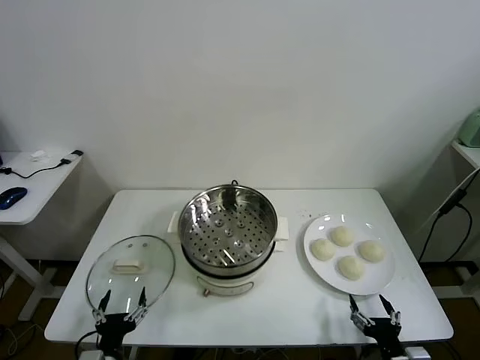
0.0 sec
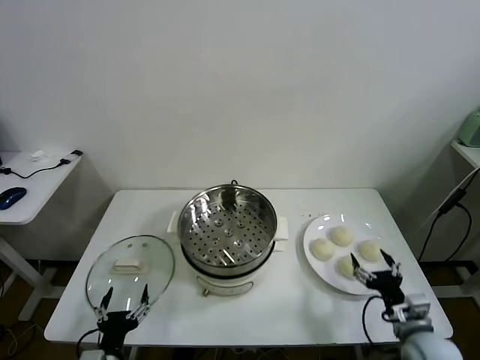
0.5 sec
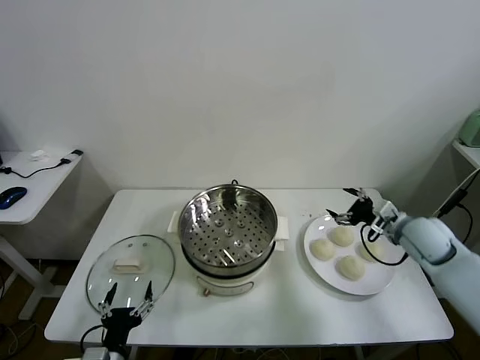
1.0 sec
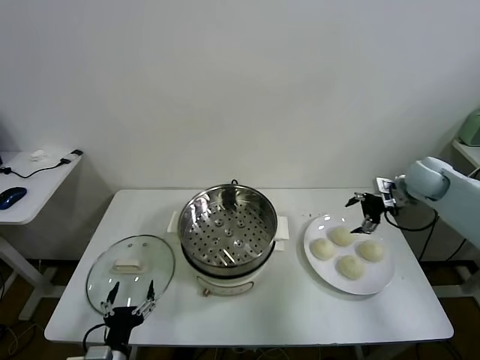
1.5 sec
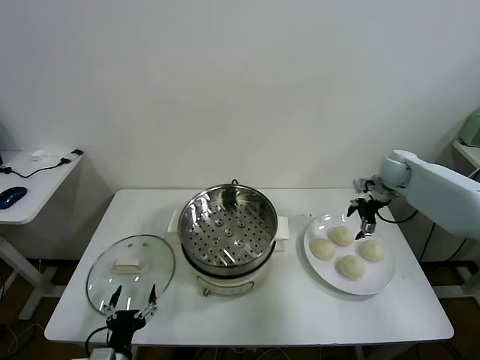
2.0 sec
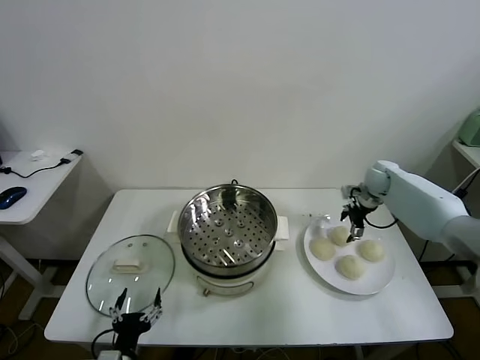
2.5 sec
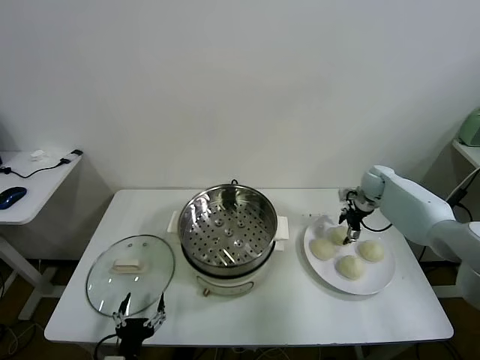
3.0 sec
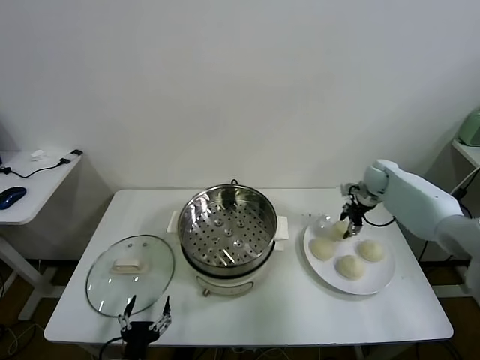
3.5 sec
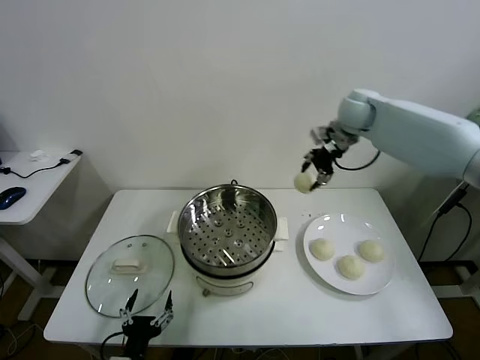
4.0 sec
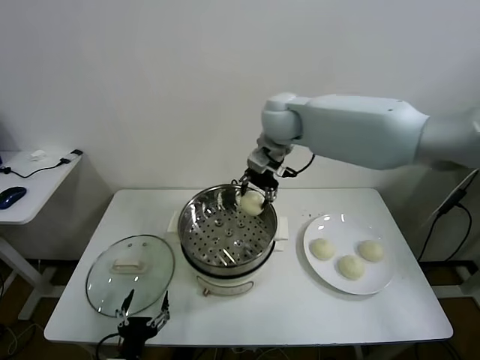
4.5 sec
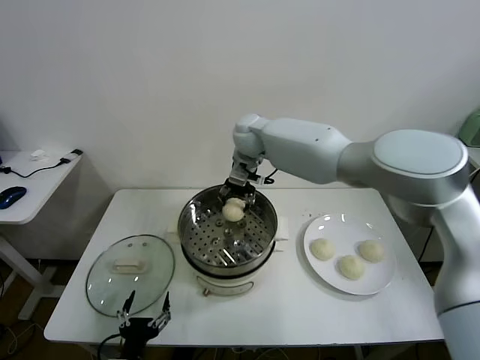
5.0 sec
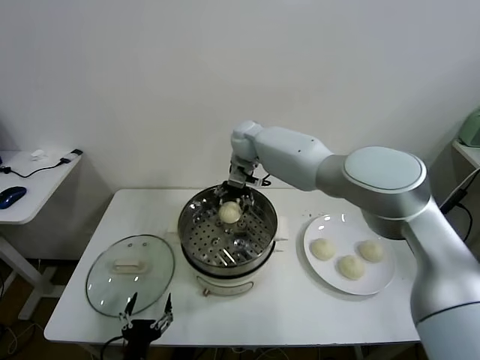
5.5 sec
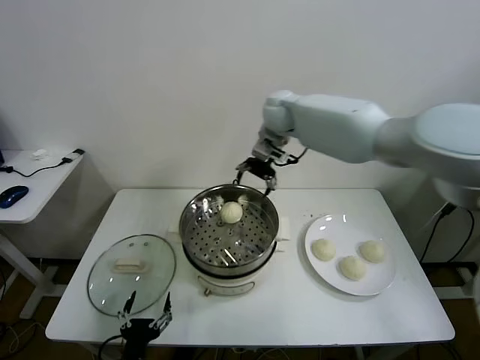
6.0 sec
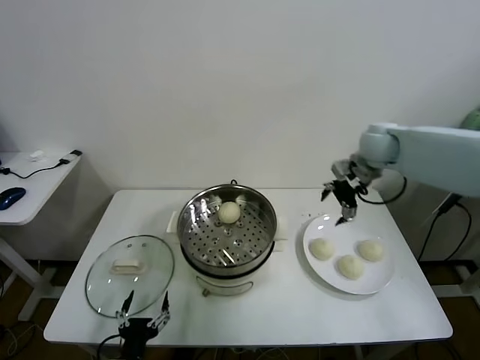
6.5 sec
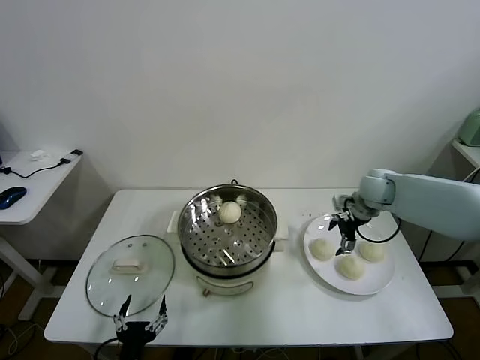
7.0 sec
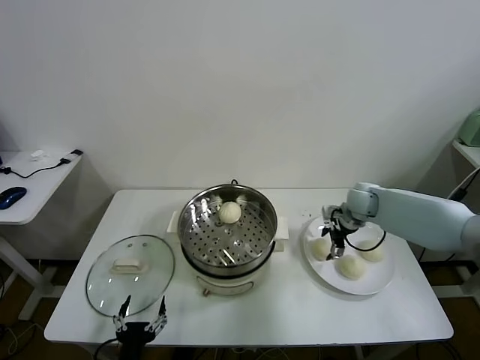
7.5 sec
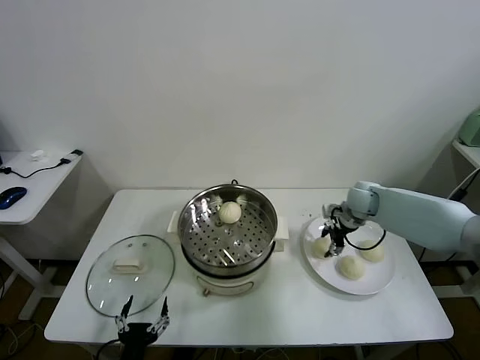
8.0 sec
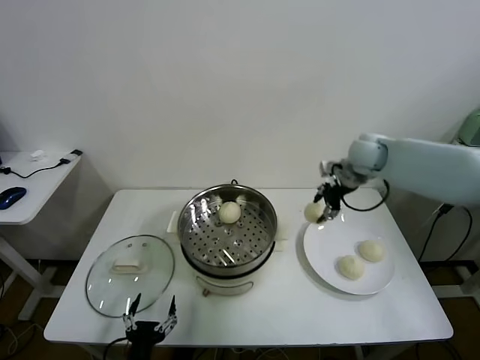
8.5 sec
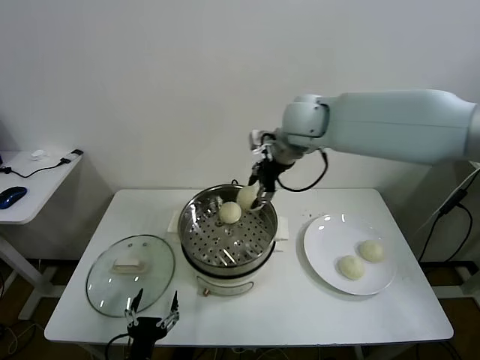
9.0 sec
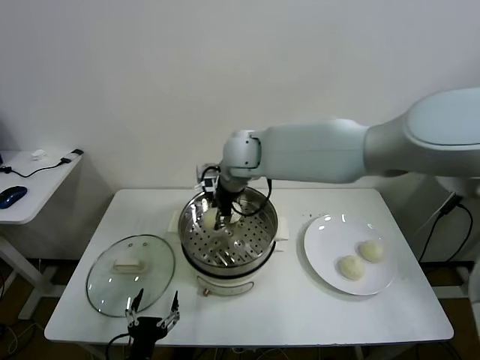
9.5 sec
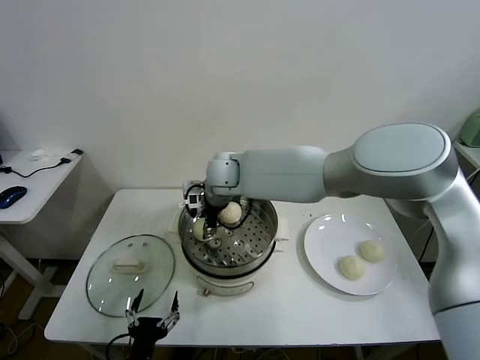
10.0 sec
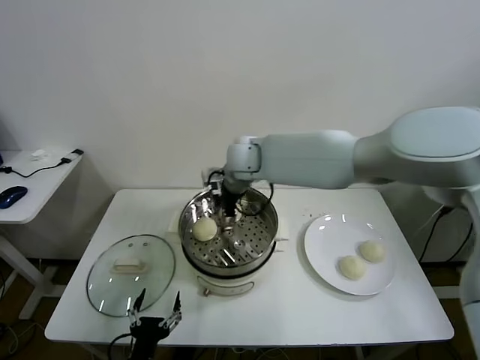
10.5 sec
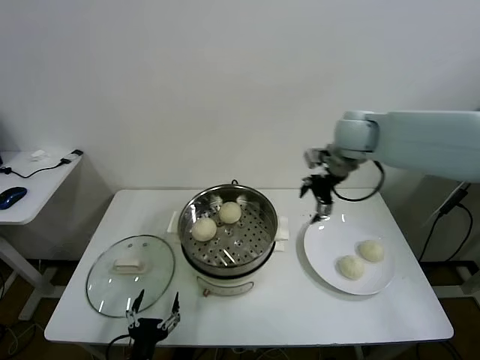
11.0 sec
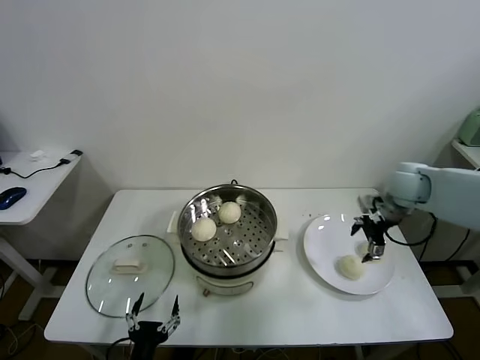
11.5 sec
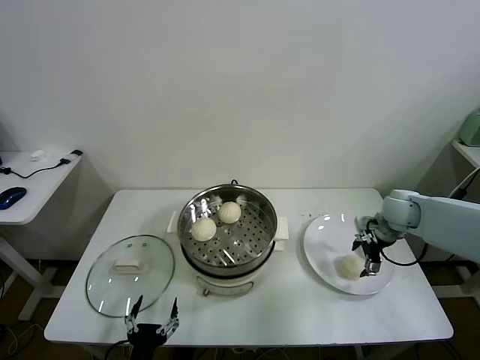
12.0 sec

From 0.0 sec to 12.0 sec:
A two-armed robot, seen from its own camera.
Task of the whole recording: take steamed baozi put them in steamer.
Step, from 0.0 sec to 3.0 sec: Grasp the baozi in the plate with right gripper.
Step, from 3.5 sec to 5.5 sec: Place the baozi on the steamer with right gripper.
Step, from 6.0 sec to 7.5 sec: Grasp the baozi in the plate with right gripper.
Step, from 8.0 sec to 10.0 sec: Place the baozi on the steamer with right gripper.
From 2.0 sec to 4.0 sec: The right gripper goes some 25 cm upward and to the left, and closes.
From 4.0 sec to 6.0 sec: The right gripper heads to the left, covering roughly 10 cm, and opens up.
From 6.0 sec to 8.0 sec: The right gripper heads downward and to the right, covering roughly 30 cm, and closes up.
From 8.0 sec to 10.0 sec: The right gripper moves to the left, some 35 cm.
From 10.0 sec to 12.0 sec: The right gripper heads to the right, covering some 40 cm, and opens its fingers.

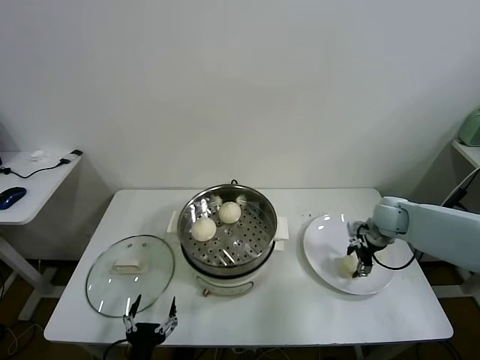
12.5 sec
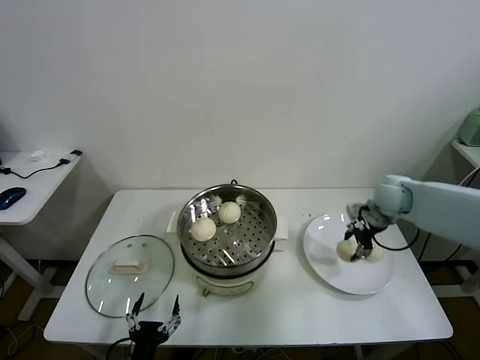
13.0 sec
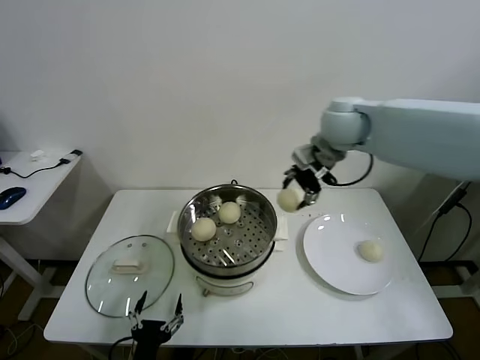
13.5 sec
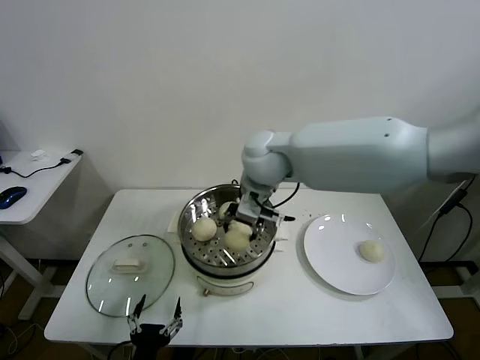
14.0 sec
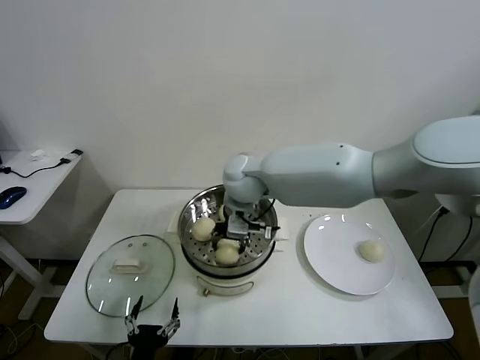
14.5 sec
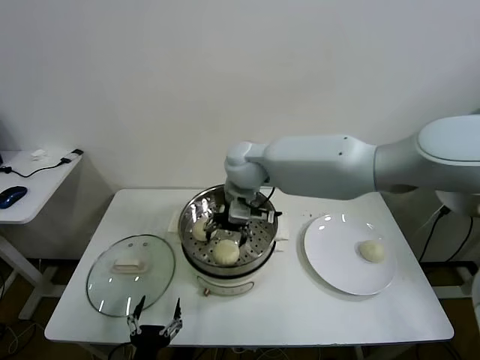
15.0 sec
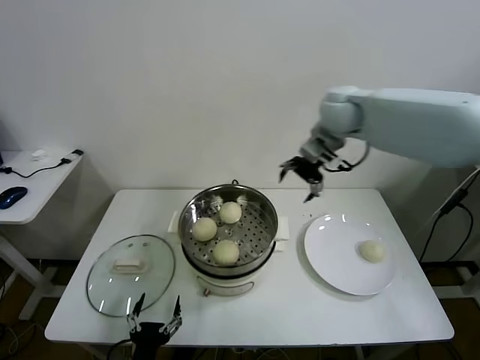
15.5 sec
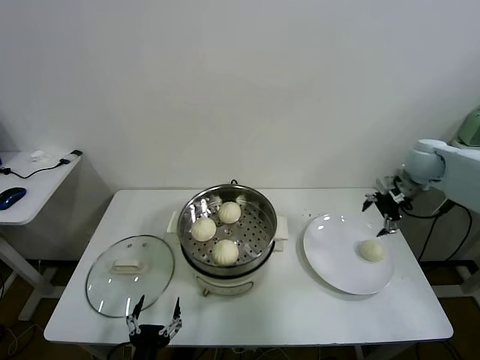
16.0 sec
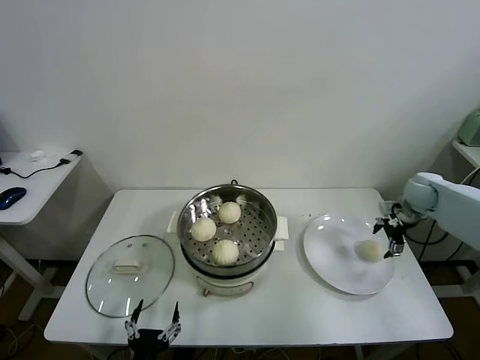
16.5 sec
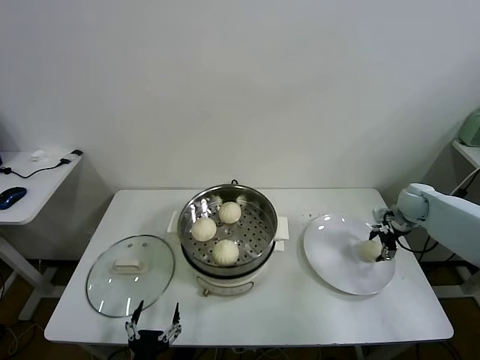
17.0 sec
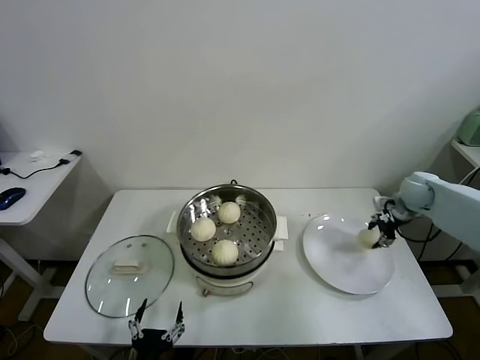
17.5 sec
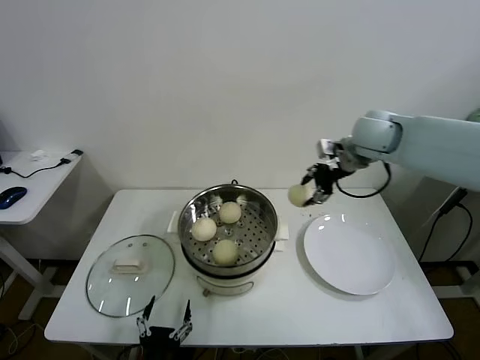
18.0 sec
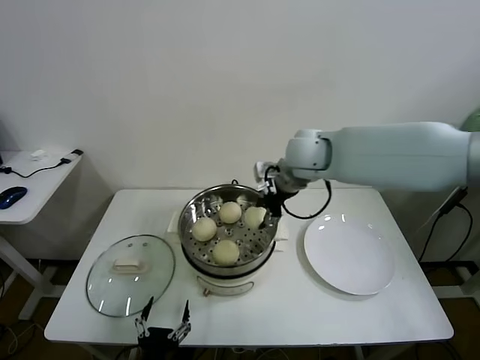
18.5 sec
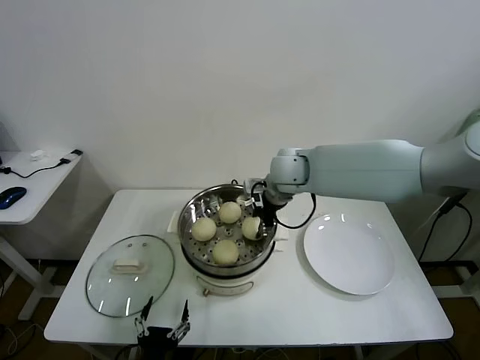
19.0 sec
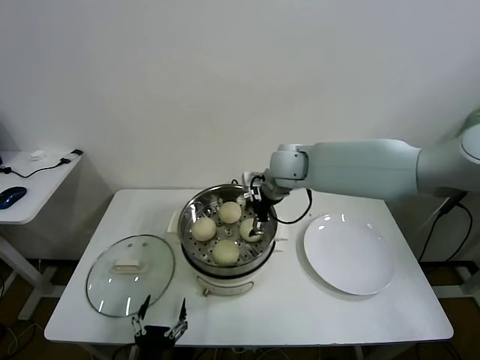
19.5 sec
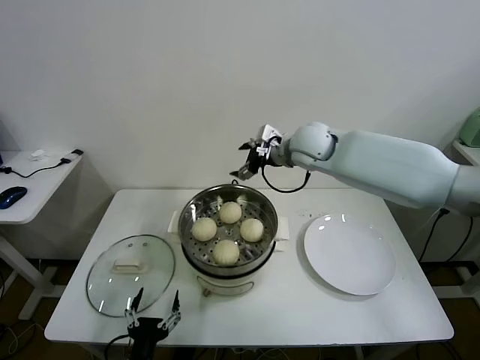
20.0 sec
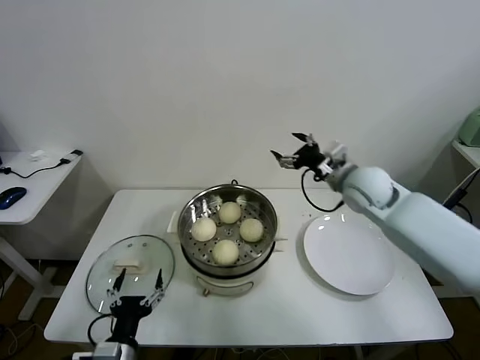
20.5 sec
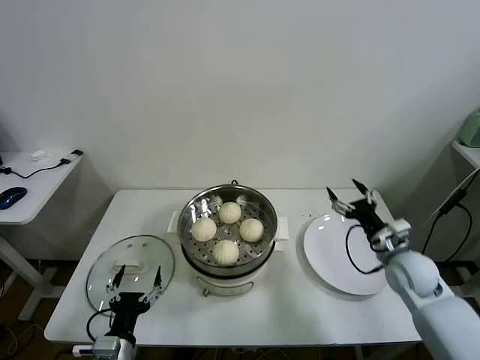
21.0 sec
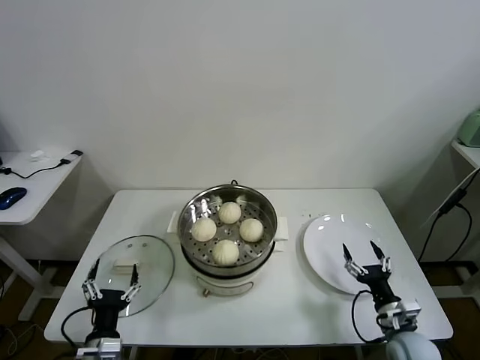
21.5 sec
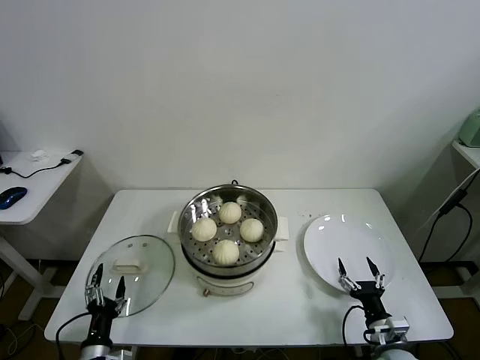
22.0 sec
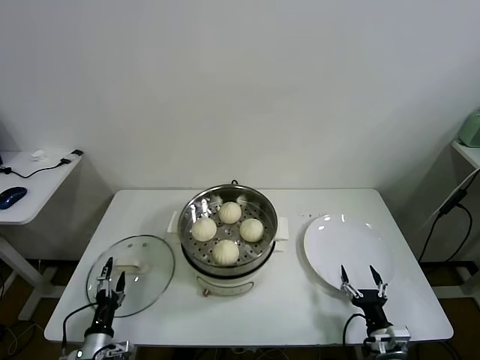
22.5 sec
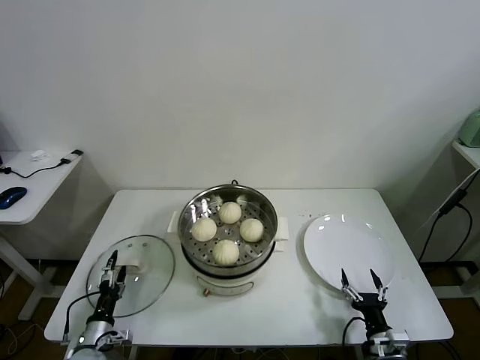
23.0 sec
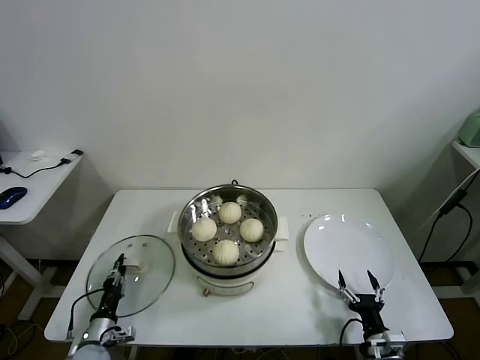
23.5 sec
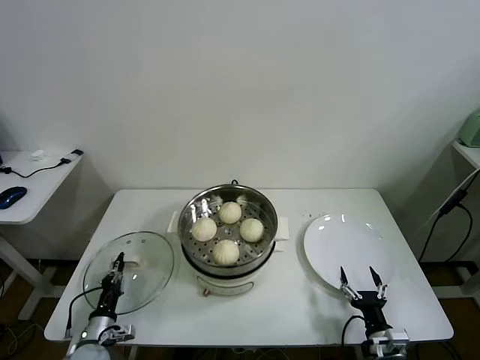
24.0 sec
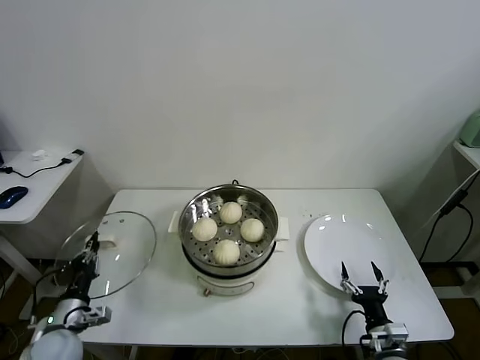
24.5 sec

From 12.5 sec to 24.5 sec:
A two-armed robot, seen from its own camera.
Task of the whole recording: take steamed baozi put them in steamer.
Step, from 13.0 sec to 14.5 sec: Place the baozi on the steamer with right gripper.
Step, from 15.5 sec to 17.0 sec: Grasp the baozi in the plate with right gripper.
Step, from 17.5 sec to 19.0 sec: Place the baozi on the steamer with right gripper.
Step, from 20.0 sec to 23.5 sec: Grasp the pot lid with left gripper.
From 12.5 sec to 14.5 sec: The right gripper is displaced to the left by approximately 40 cm.
From 14.5 sec to 16.5 sec: The right gripper heads to the right, covering about 50 cm, and opens.
From 16.5 sec to 18.5 sec: The right gripper is displaced to the left and upward by about 35 cm, and closes up.
From 18.5 sec to 20.5 sec: The left gripper ends up about 5 cm from where it was. Meanwhile the right gripper is displaced to the right and downward by about 15 cm, and opens its fingers.
From 20.5 sec to 22.5 sec: The left gripper shifts roughly 15 cm downward and to the left, while the right gripper shifts some 40 cm downward and backward.
From 22.5 sec to 24.5 sec: The left gripper heads upward, covering approximately 10 cm, and closes up.

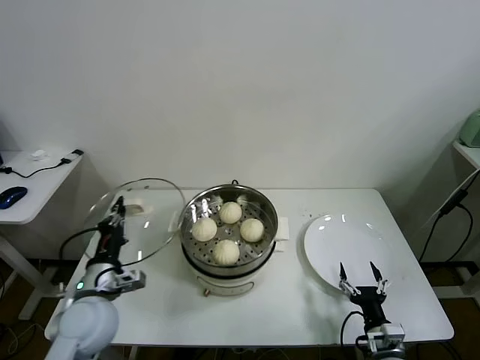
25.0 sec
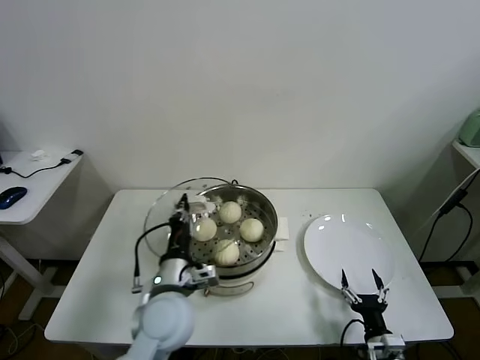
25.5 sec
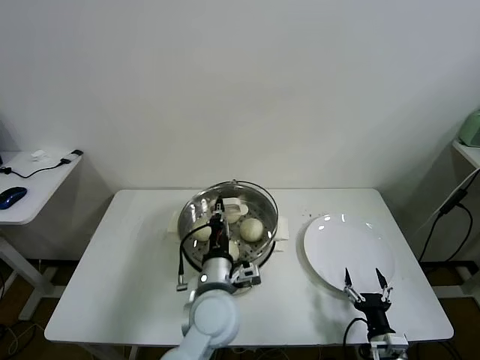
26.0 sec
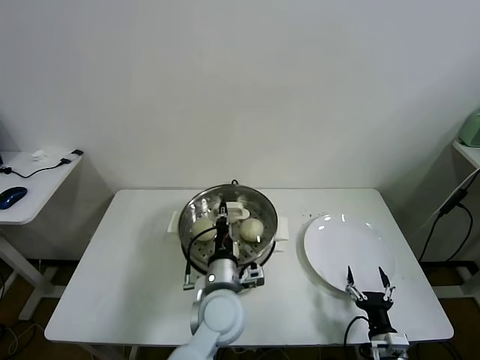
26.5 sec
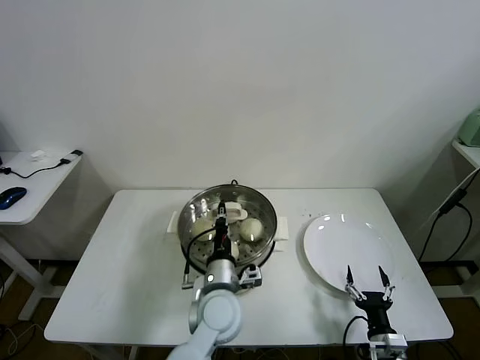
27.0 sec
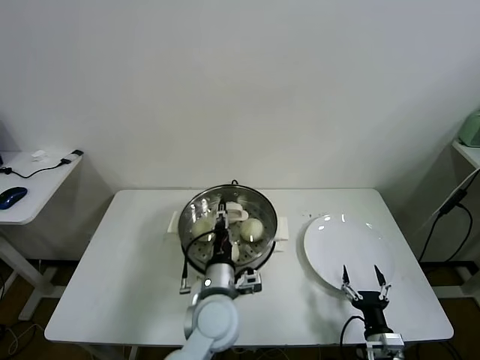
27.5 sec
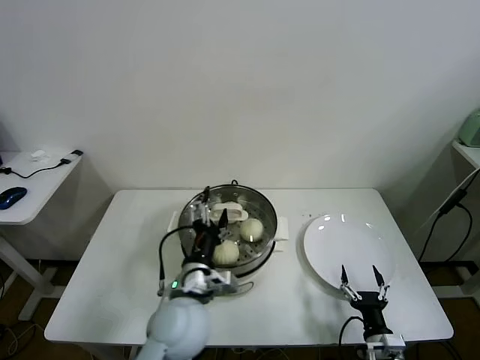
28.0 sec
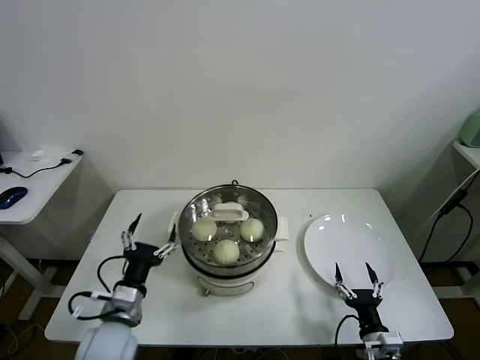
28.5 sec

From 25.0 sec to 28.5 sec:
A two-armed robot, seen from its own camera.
Task of the whole recording: take steamed baozi put them in steamer.
Step, from 25.0 sec to 27.5 sec: Place the pot lid on the steamer with left gripper.
From 25.0 sec to 27.0 sec: The left gripper heads to the right, covering some 25 cm.
From 27.0 sec to 28.5 sec: The left gripper shifts some 20 cm to the left, and opens up.
